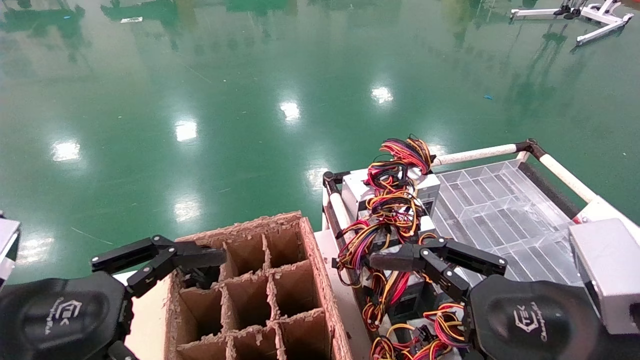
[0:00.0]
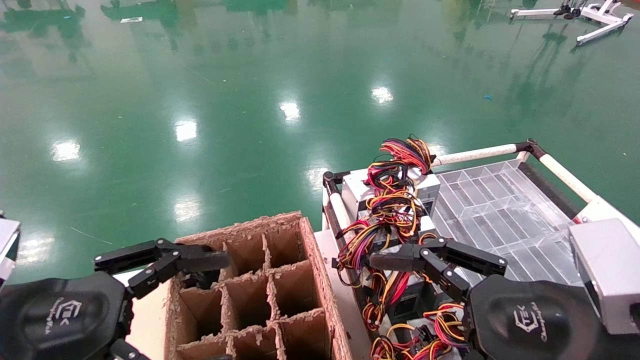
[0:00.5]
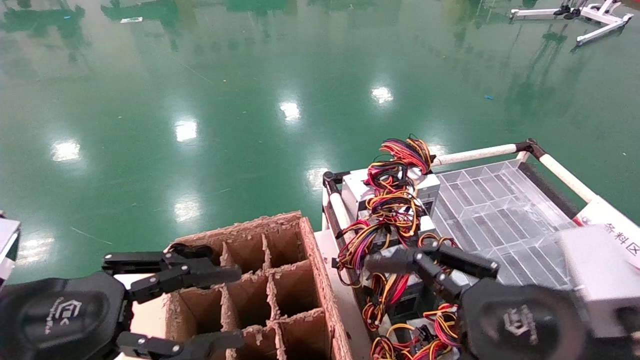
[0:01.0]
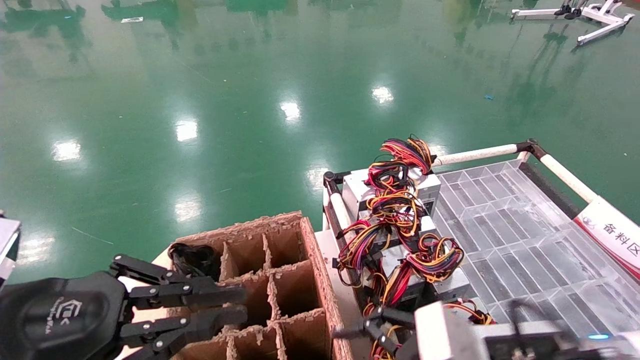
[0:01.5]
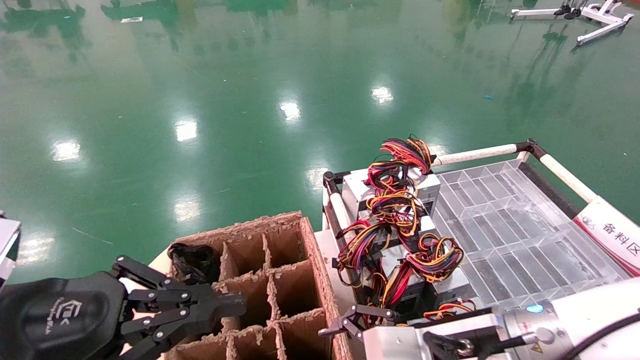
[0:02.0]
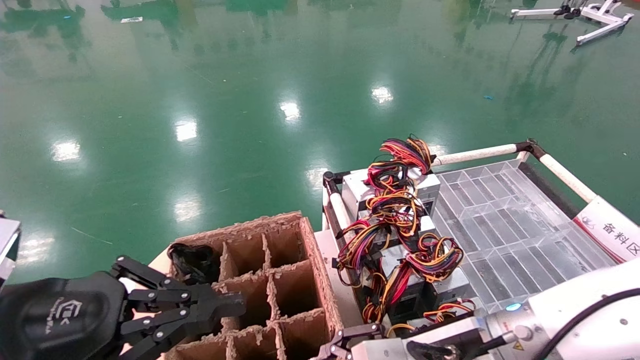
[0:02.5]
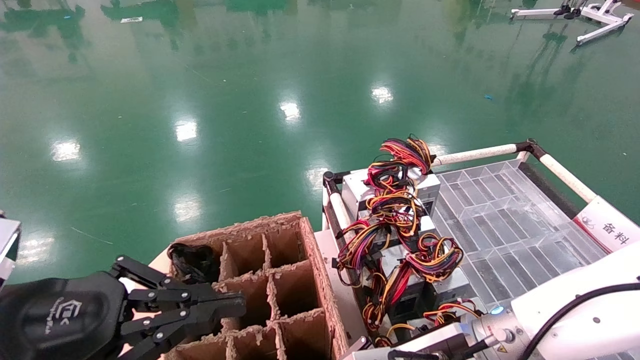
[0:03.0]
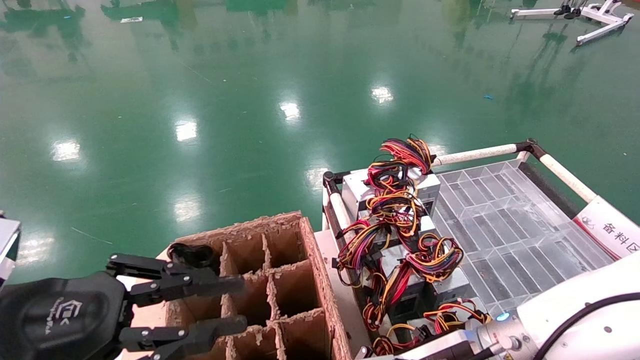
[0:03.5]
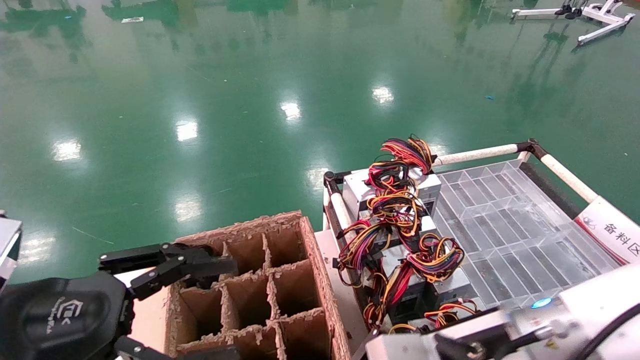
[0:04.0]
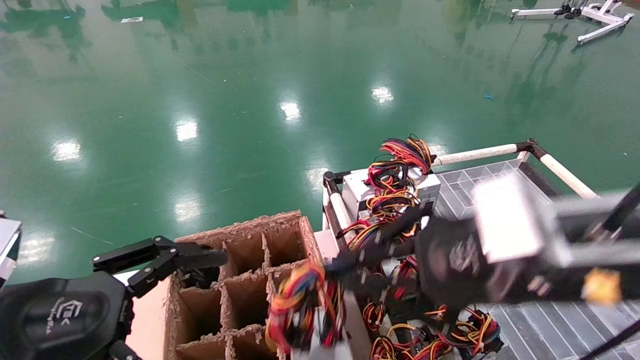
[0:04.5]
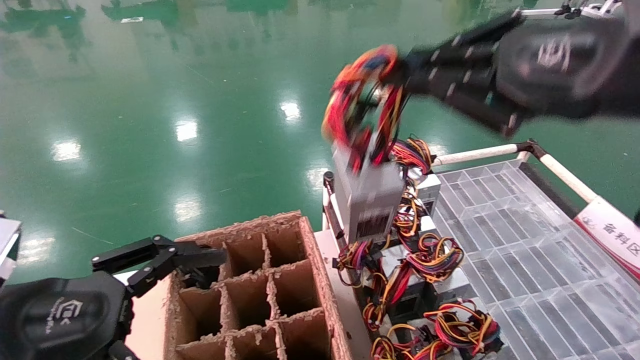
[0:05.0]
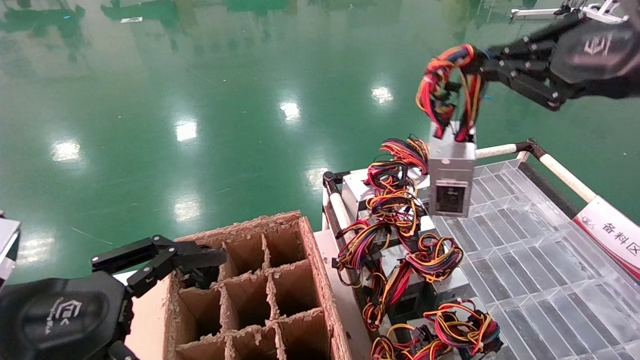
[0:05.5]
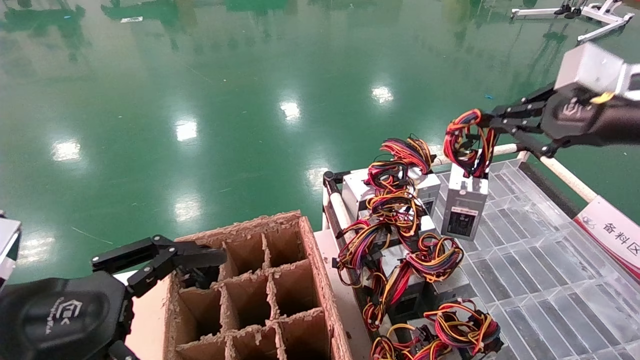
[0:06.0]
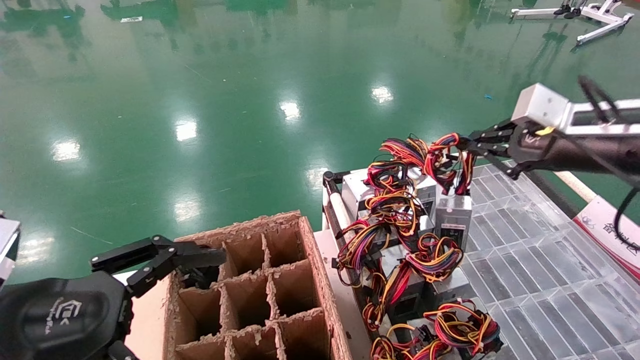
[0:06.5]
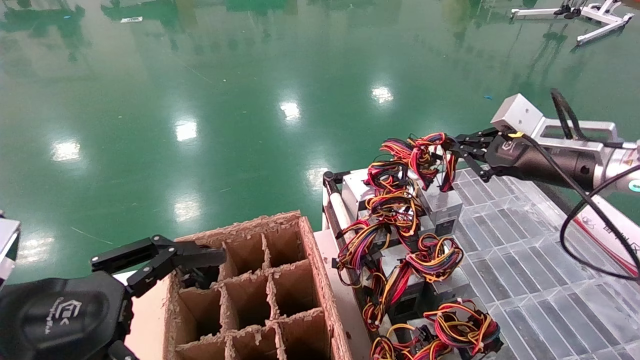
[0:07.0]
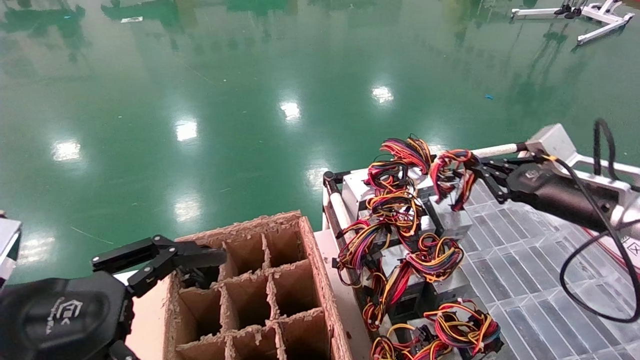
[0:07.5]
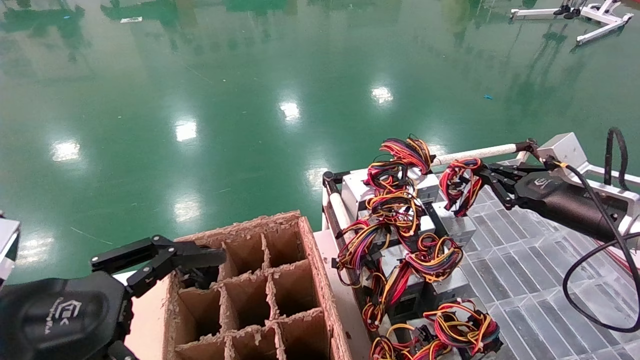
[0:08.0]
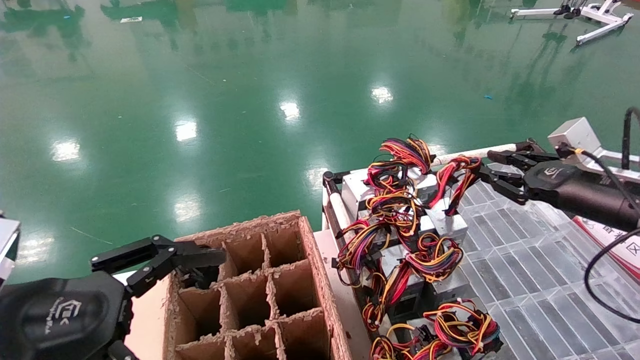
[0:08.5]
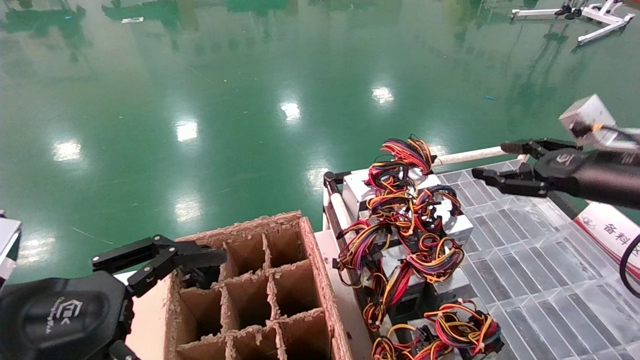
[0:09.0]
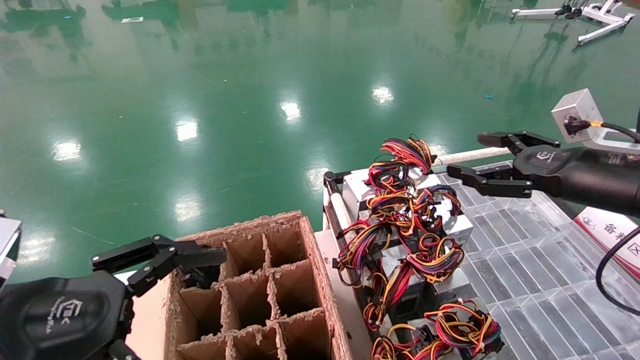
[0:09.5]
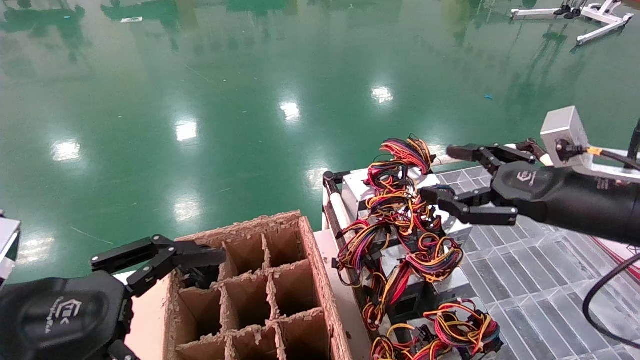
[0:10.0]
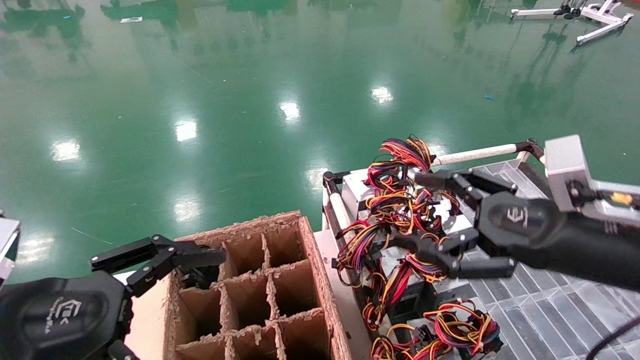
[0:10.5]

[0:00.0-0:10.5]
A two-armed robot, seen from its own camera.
Step, 0:01.0 to 0:03.5: Grab and lift the power supply from the large box.
Step, 0:04.0 to 0:08.0: Place the power supply on the operating table.
0:00.0 to 0:02.0: The right gripper travels forward, to the left and downward by about 15 cm, while the left gripper closes up.
0:02.0 to 0:04.0: The left gripper opens, while the right gripper closes.
0:04.0 to 0:06.5: The left gripper opens its fingers, while the right gripper moves to the right, upward and forward, approximately 25 cm.
0:06.5 to 0:08.5: The right gripper heads downward, covering about 10 cm.
0:08.5 to 0:10.5: The right gripper travels to the left and backward by approximately 15 cm, and opens up.

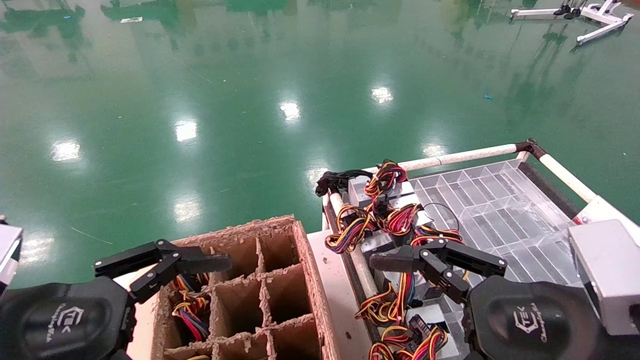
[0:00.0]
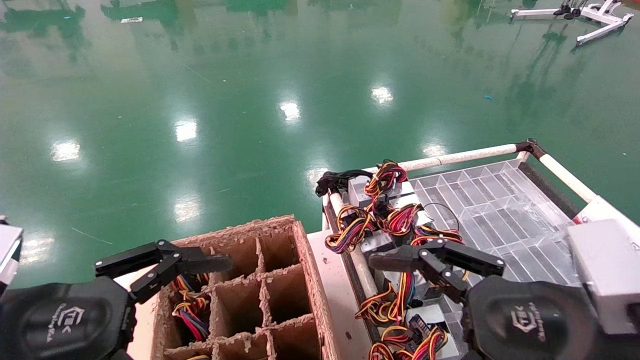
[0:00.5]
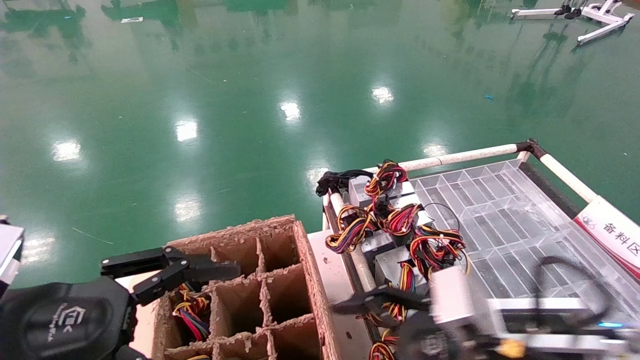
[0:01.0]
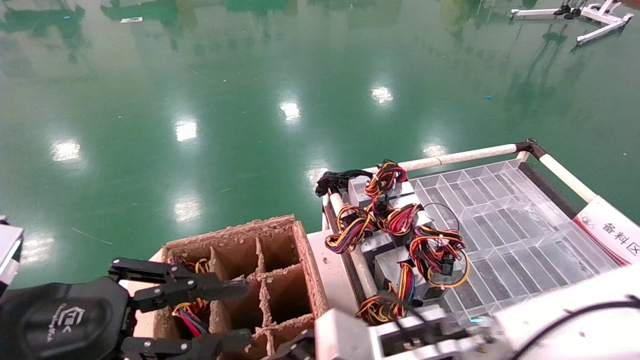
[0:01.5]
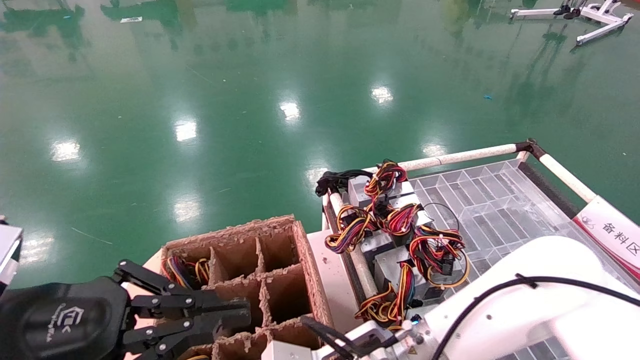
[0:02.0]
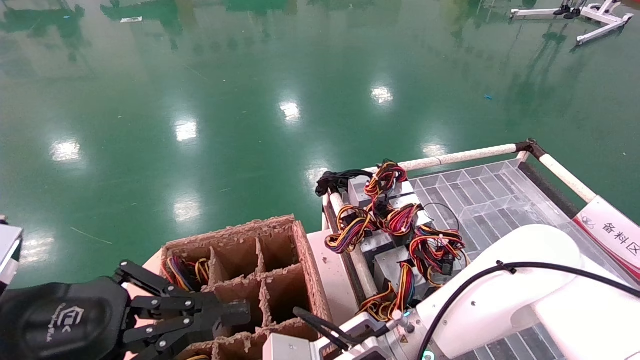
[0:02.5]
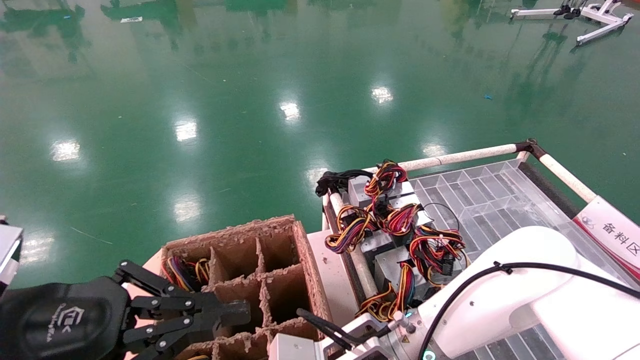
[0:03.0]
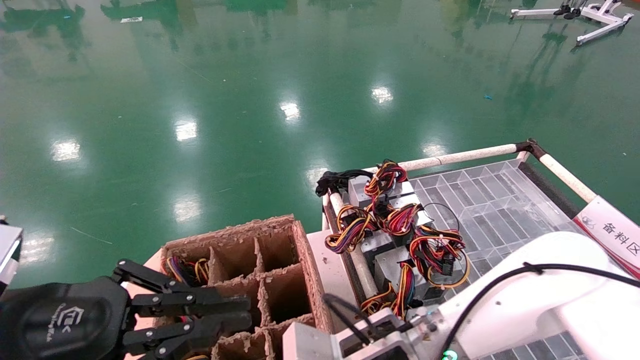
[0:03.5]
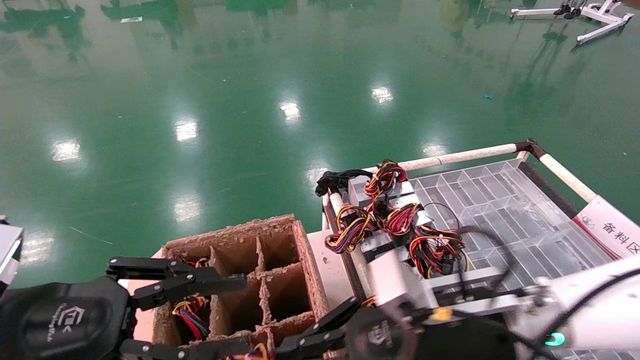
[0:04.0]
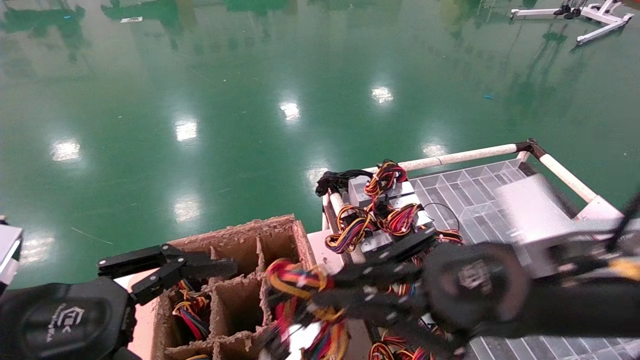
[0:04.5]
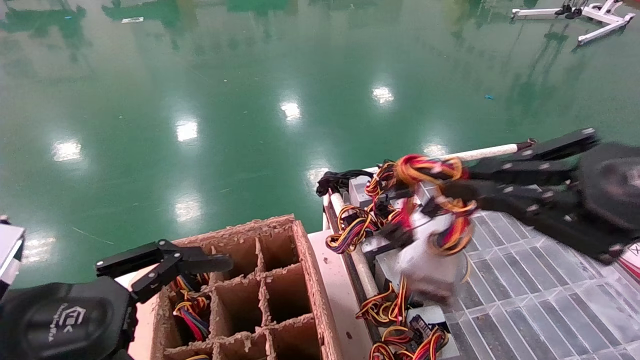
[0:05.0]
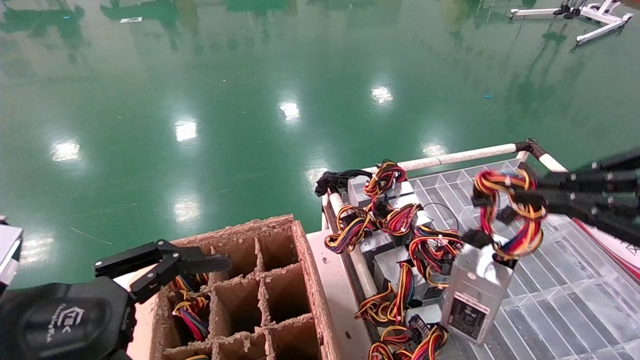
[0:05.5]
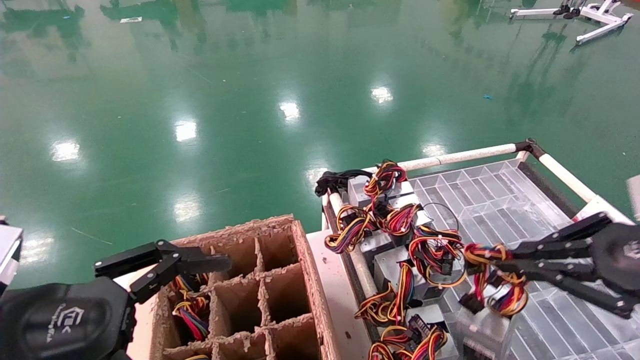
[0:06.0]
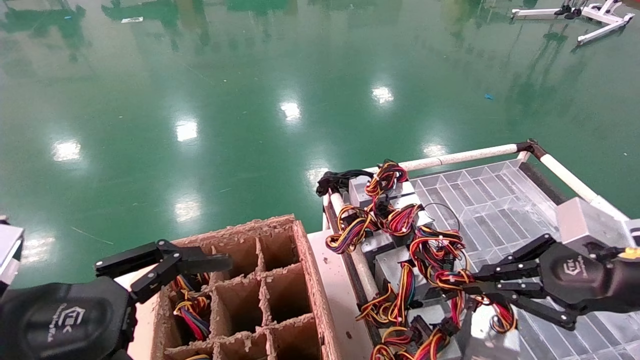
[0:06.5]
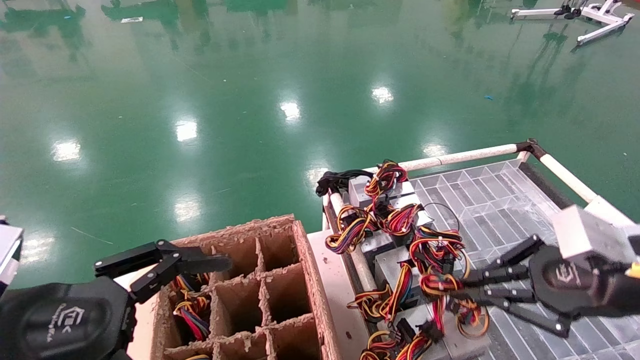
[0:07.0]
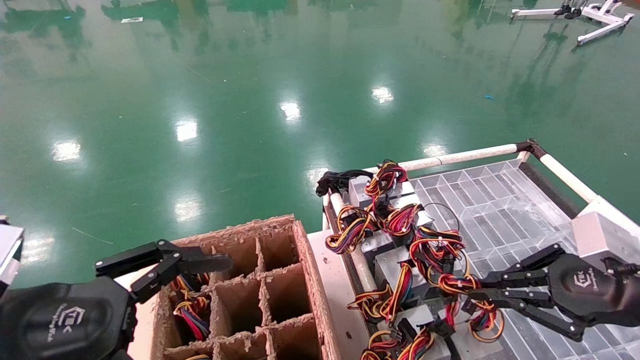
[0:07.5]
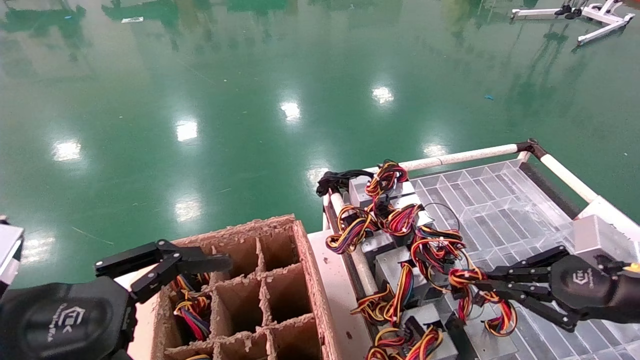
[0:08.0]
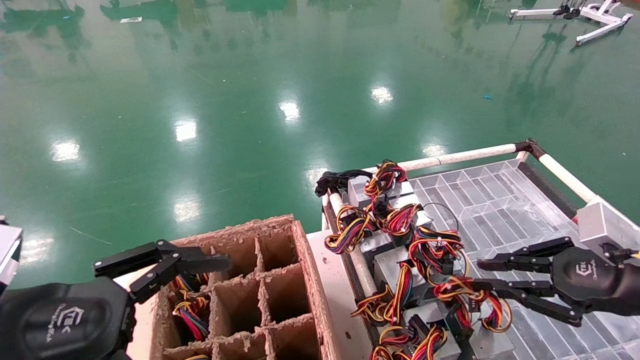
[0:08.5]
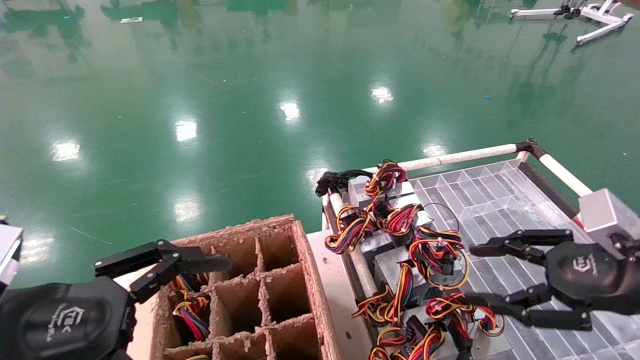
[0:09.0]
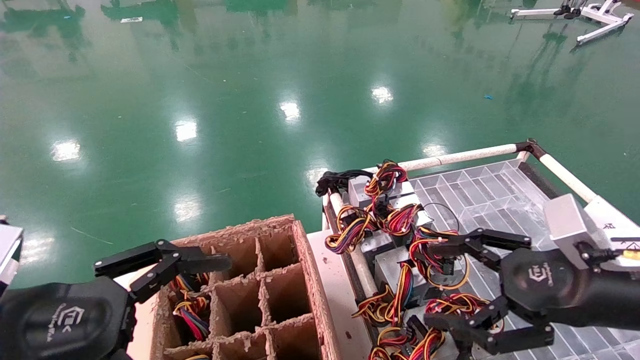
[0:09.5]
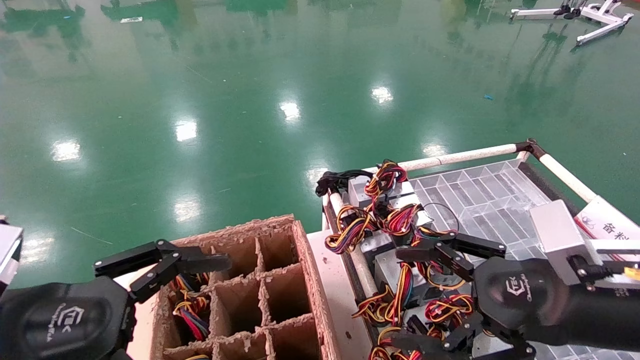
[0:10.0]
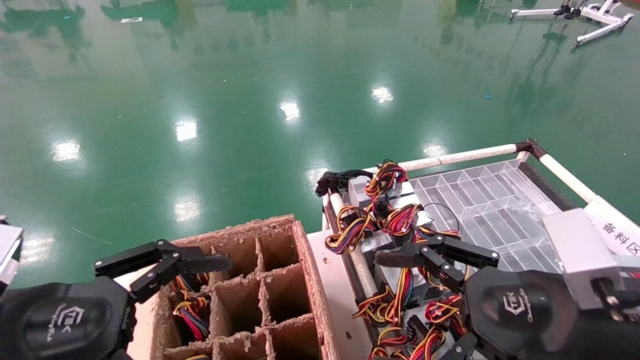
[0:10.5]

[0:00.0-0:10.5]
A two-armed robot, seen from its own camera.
Step, 0:01.0 to 0:03.0: Grab and lift the power supply from the large box.
Step, 0:03.5 to 0:08.0: Place the power supply on the operating table.
0:00.0 to 0:02.0: The left gripper closes; the right gripper shifts about 25 cm to the left, forward and downward.
0:02.0 to 0:04.0: The right gripper goes about 10 cm to the right and upward, and closes up.
0:04.0 to 0:06.5: The right gripper shifts some 20 cm to the right; the left gripper opens its fingers.
0:06.5 to 0:08.5: The right gripper shifts by some 5 cm.
0:08.5 to 0:10.5: The right gripper is displaced to the left and backward by about 15 cm, and opens its fingers.
